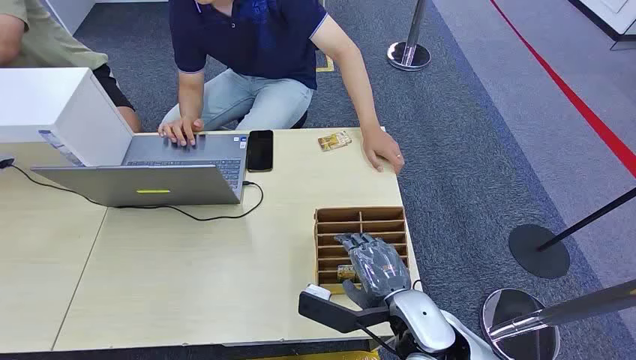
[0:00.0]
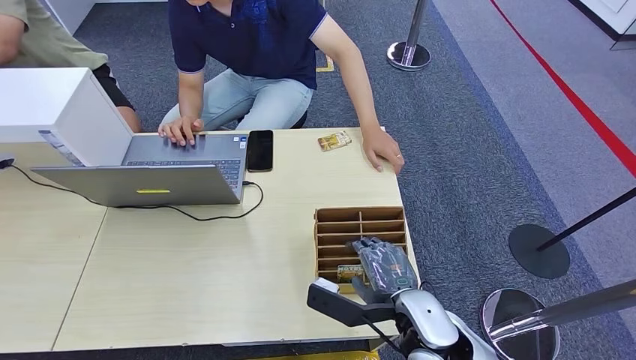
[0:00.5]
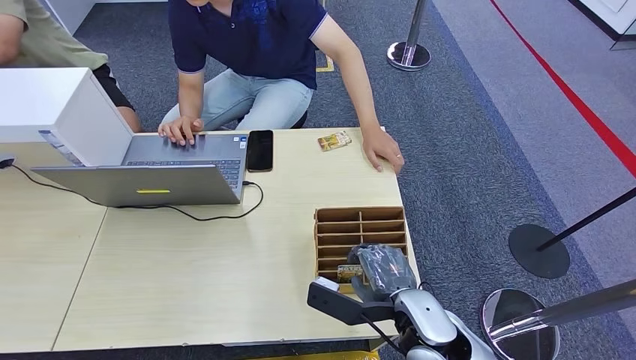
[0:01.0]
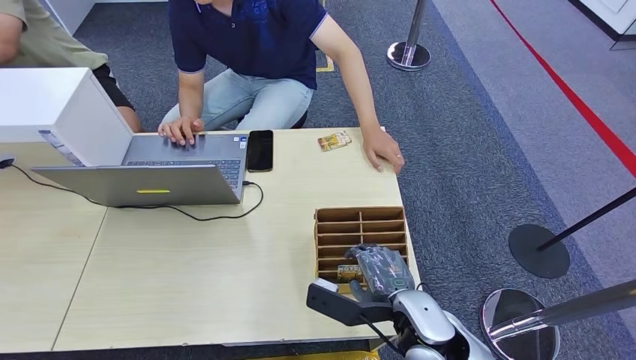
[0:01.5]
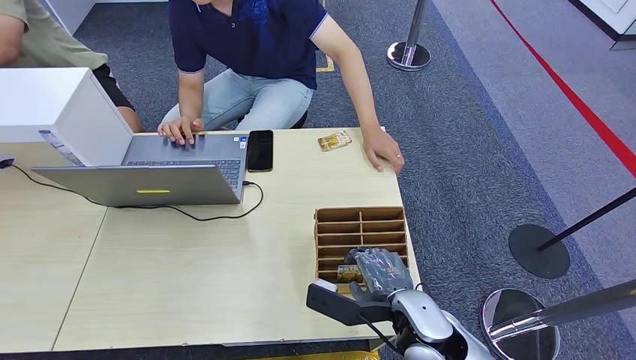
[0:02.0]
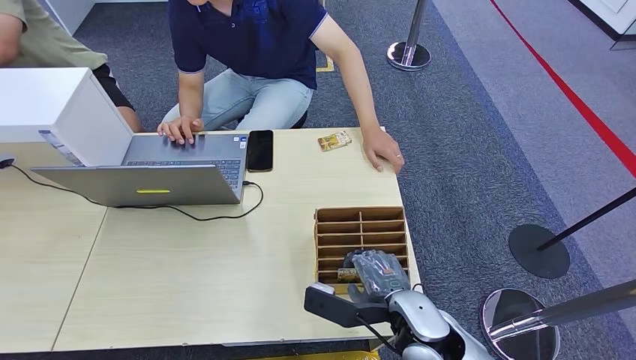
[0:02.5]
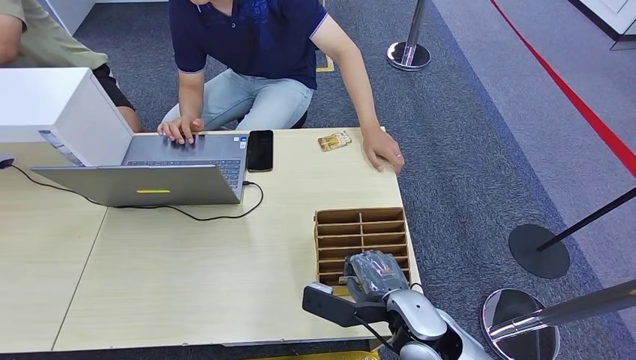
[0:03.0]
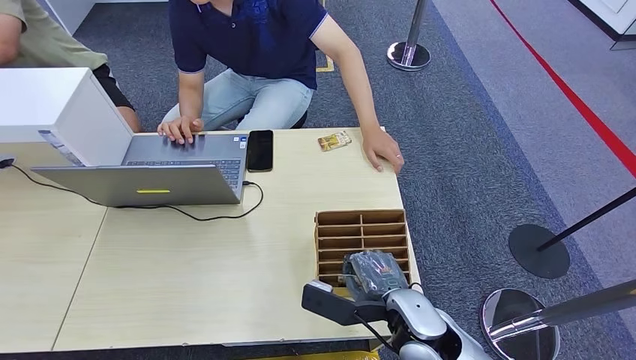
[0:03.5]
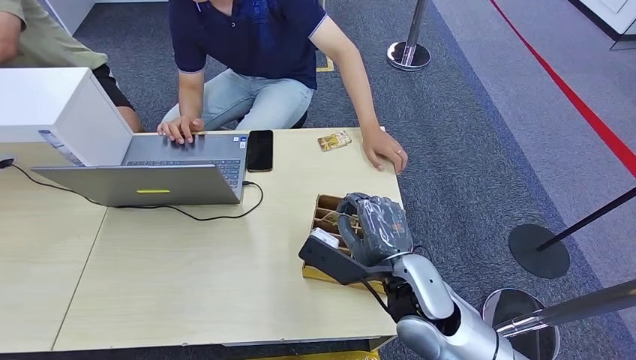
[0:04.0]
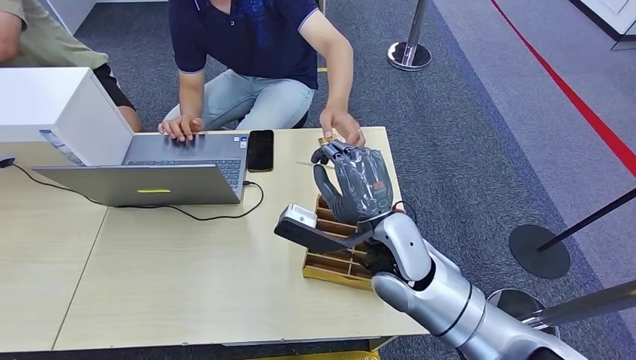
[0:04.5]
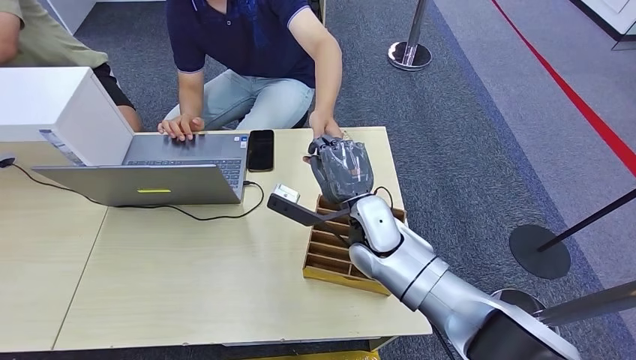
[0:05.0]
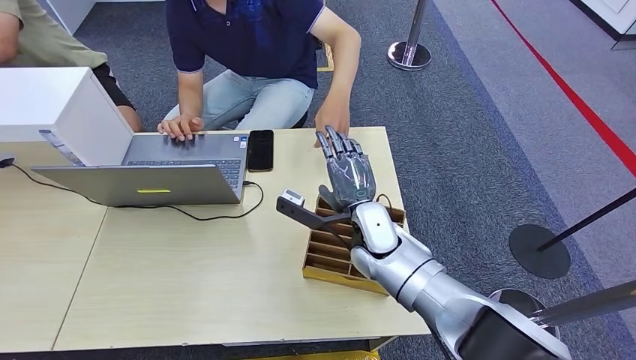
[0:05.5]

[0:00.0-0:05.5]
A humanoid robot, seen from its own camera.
Step, 0:00.0 to 0:03.5: Pick up the room card from the card holder.
Step, 0:04.0 to 0:05.5: Hand the room card to the target.
0:02.0 to 0:03.5: Both hands stay put.
0:03.5 to 0:05.5: The right hand goes some 15 cm forward.
